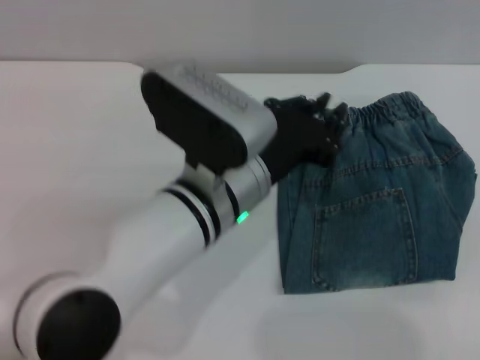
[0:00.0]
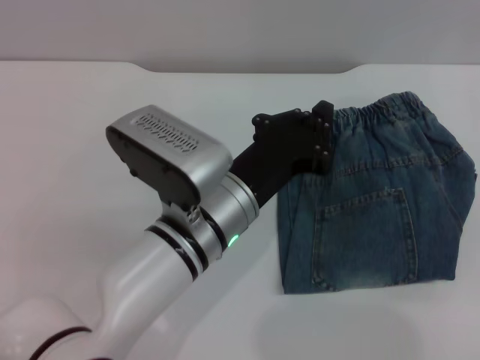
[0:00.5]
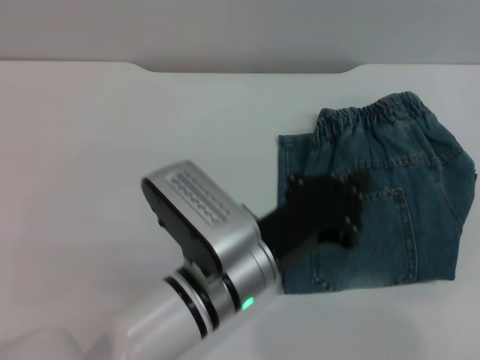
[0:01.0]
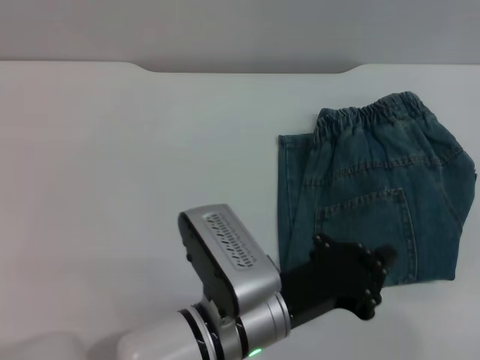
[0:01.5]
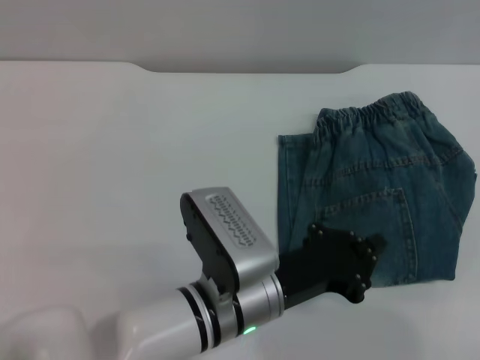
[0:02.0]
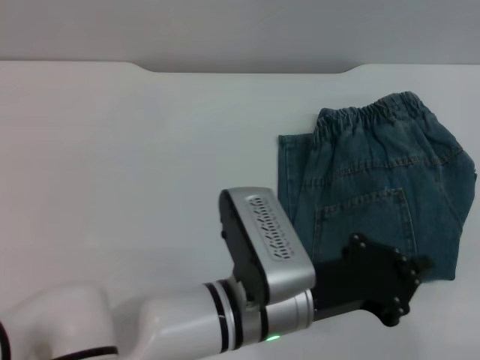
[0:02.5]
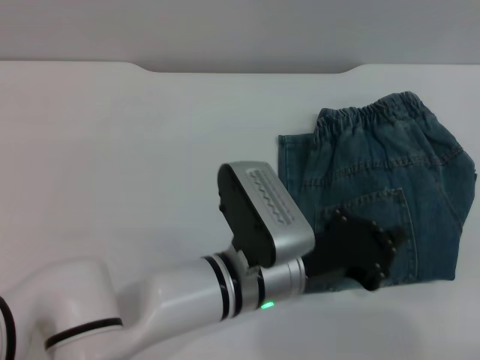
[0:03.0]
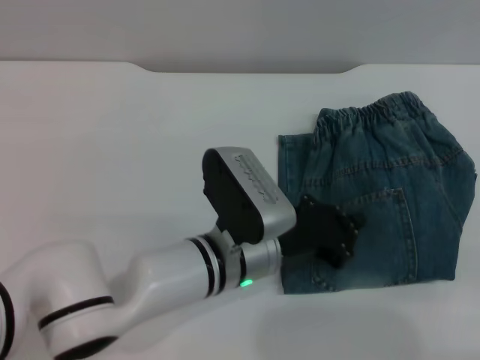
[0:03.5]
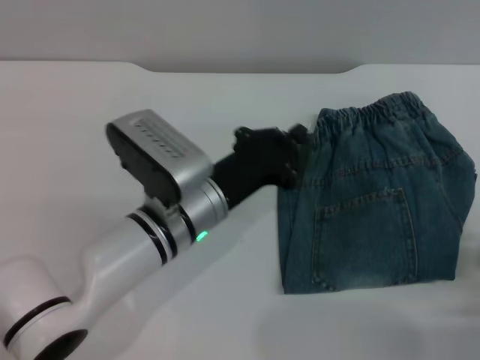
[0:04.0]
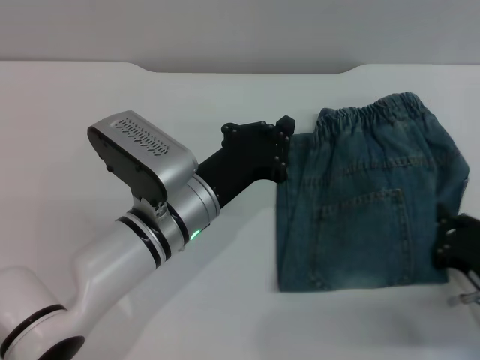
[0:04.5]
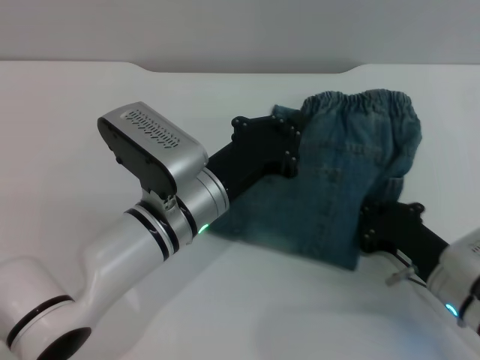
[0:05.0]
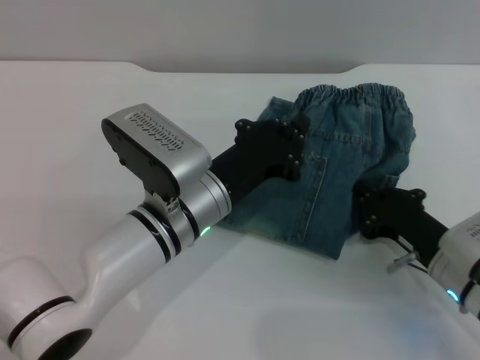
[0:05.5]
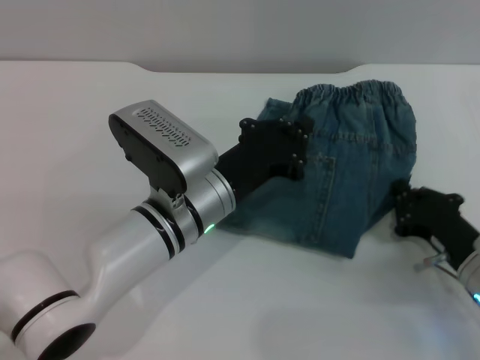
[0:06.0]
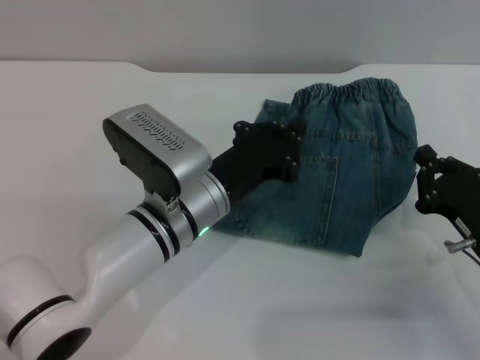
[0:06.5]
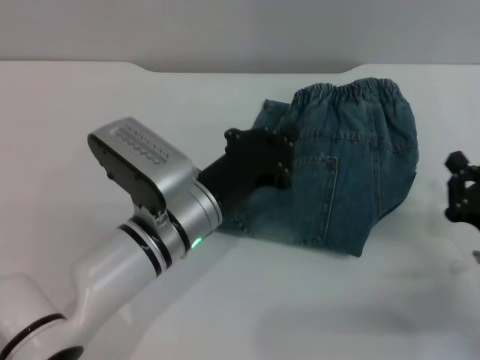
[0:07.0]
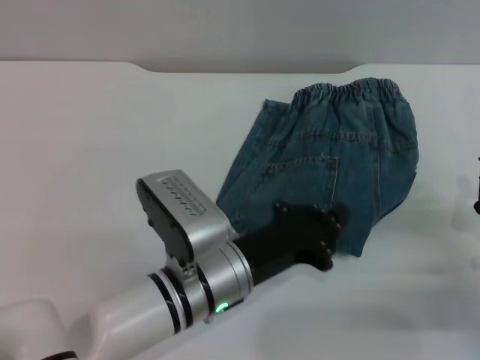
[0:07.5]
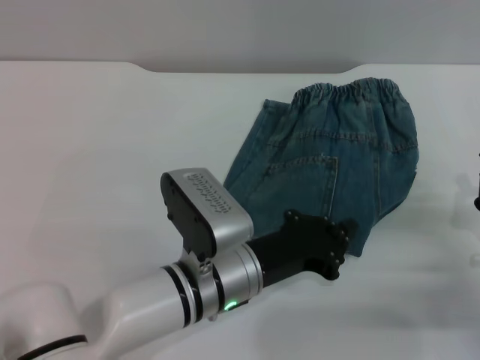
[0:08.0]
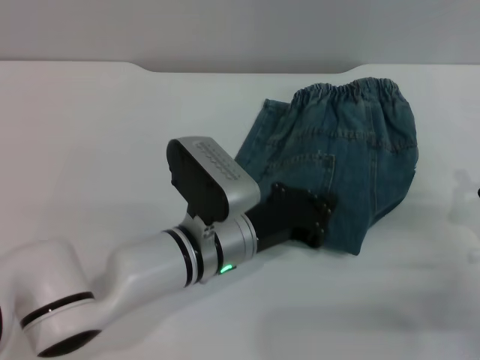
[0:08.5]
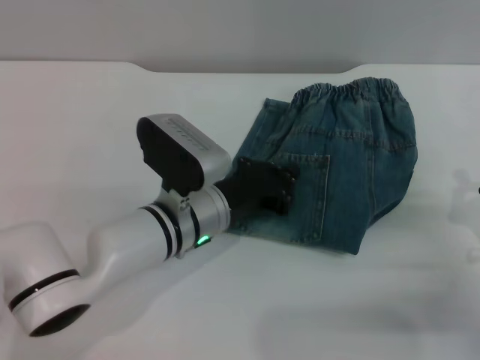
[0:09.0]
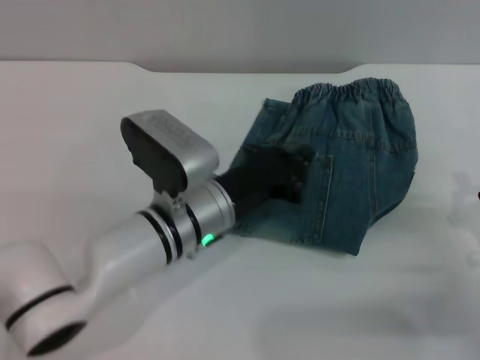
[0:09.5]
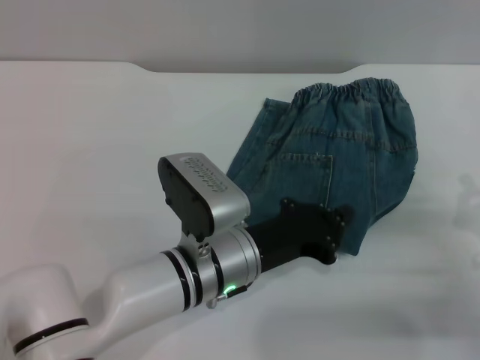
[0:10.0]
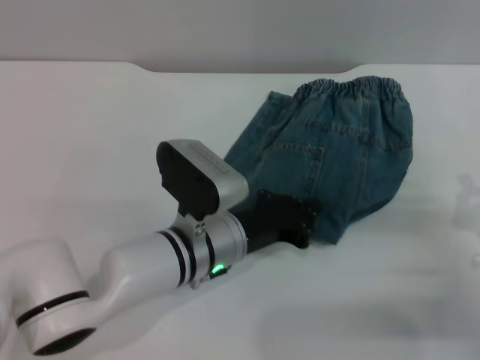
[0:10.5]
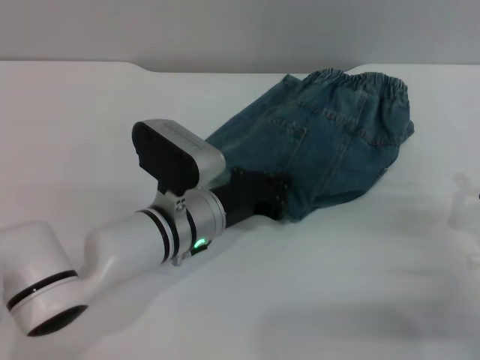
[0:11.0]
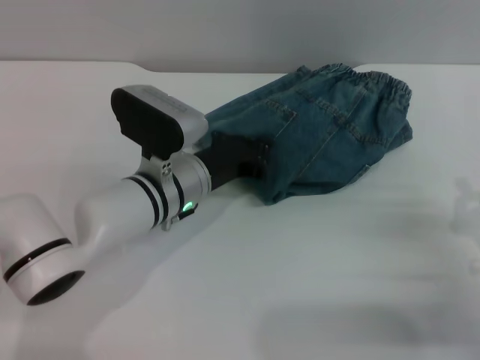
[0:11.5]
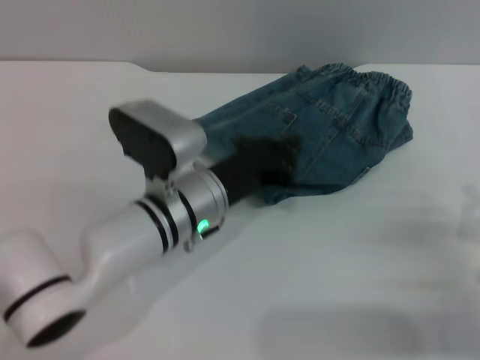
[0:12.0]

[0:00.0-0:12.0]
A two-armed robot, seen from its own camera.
0:00.0 to 0:02.0: The left gripper moves downward and backward, roughly 10 cm, and closes.
0:02.0 to 0:04.0: The right gripper shifts roughly 10 cm to the left; the left gripper moves forward, some 5 cm.
0:04.0 to 0:06.0: The right gripper shifts about 10 cm forward and to the left.
0:06.0 to 0:08.0: The left gripper moves about 5 cm. The right gripper goes some 5 cm to the right.

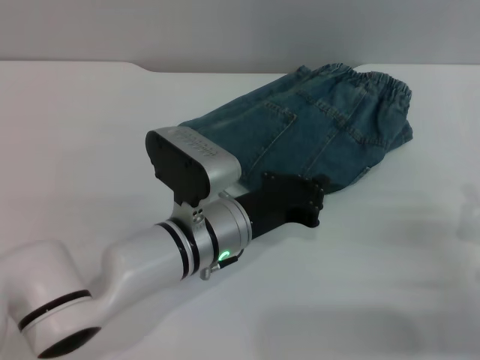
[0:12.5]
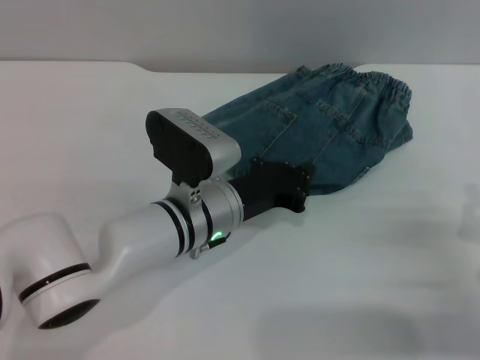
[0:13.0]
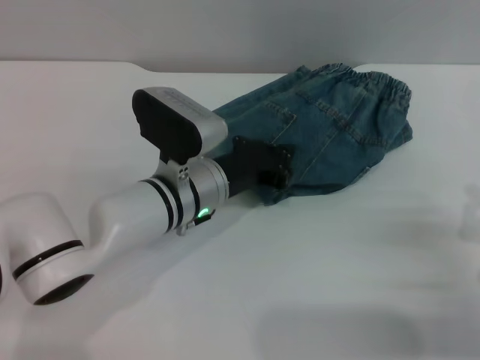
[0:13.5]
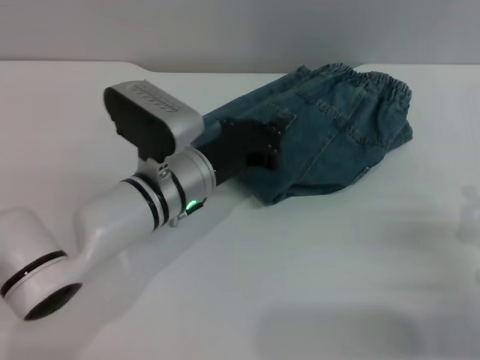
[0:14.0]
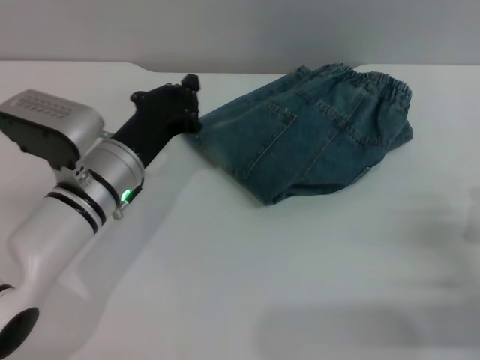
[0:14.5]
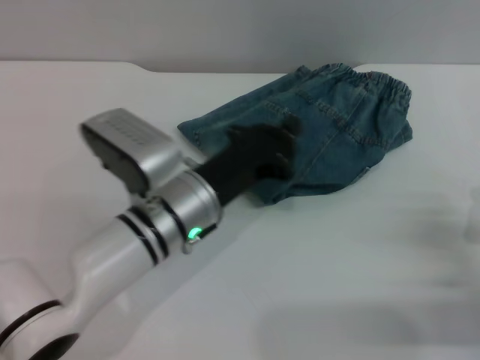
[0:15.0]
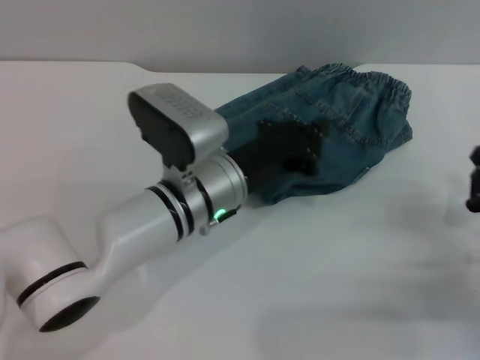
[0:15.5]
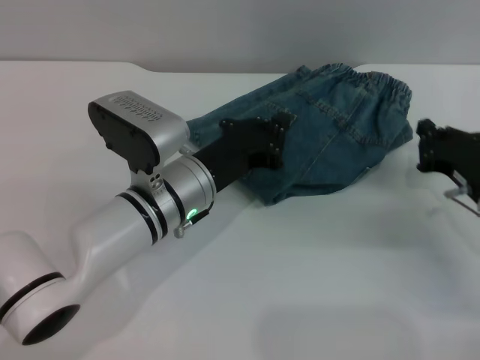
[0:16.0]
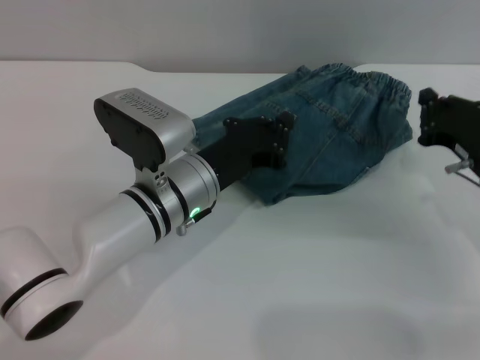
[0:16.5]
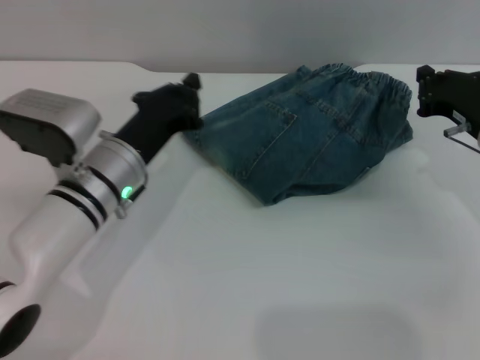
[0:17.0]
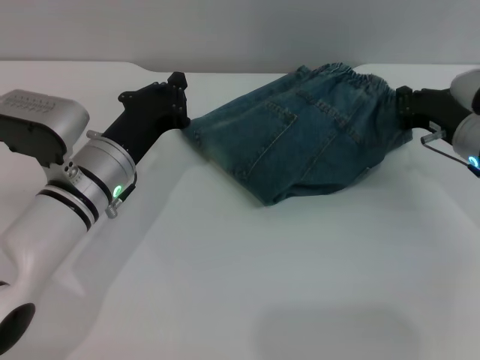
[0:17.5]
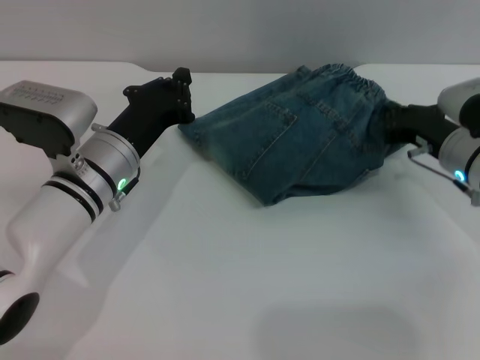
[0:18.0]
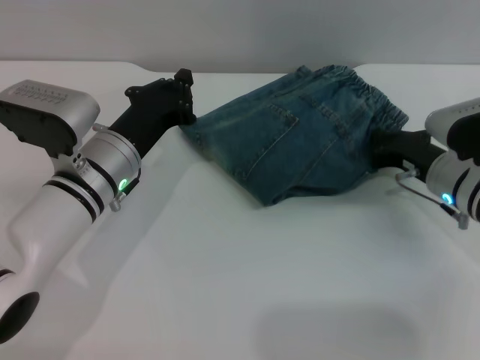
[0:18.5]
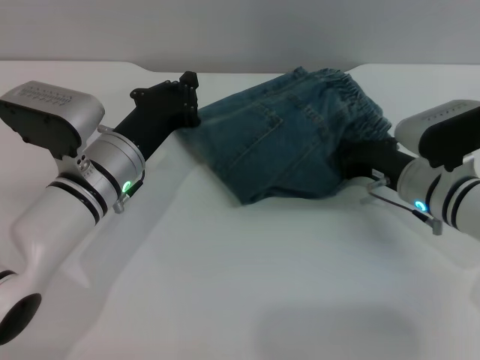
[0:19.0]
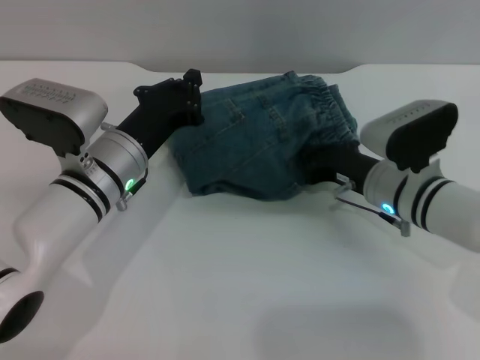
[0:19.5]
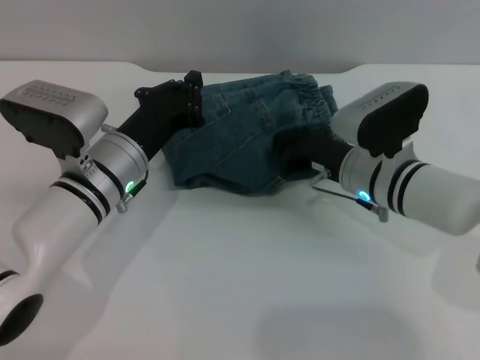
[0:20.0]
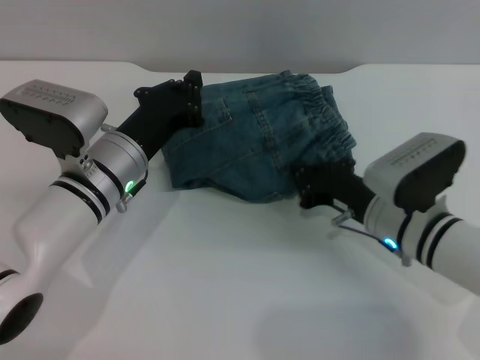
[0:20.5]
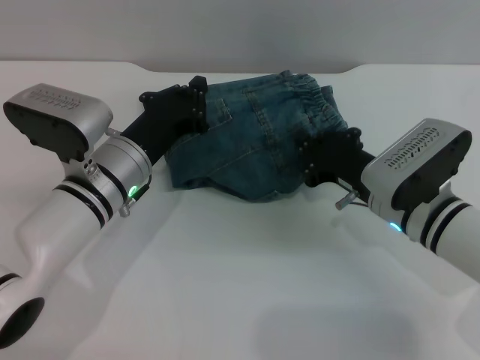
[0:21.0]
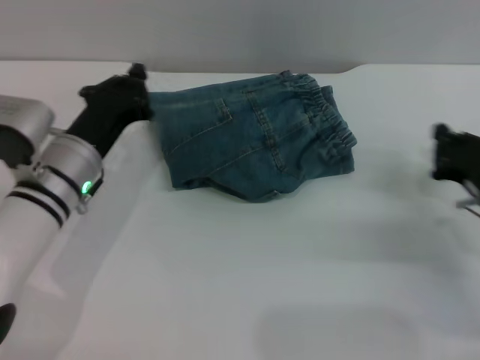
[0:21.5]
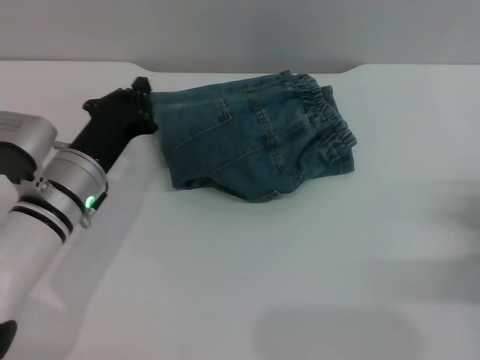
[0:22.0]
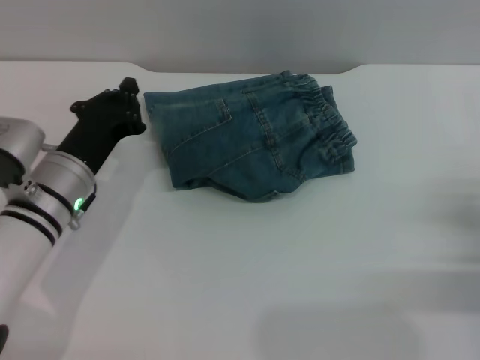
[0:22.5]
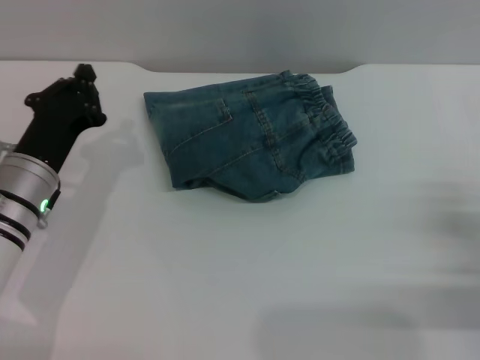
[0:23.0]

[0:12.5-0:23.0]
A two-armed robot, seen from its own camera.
0:12.5 to 0:14.5: The left gripper shifts roughly 10 cm to the left.
0:14.5 to 0:16.5: The right gripper goes about 15 cm forward and upward. Meanwhile the left gripper travels to the right by some 5 cm.
0:16.5 to 0:19.0: The two grippers go some 5 cm to the left.
0:19.0 to 0:21.0: The right gripper changes place by approximately 5 cm.
0:21.0 to 0:23.0: The right gripper is displaced to the right and backward by about 20 cm. The left gripper travels to the left by approximately 5 cm.
